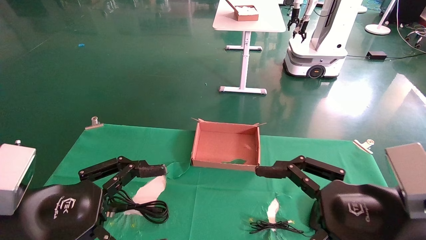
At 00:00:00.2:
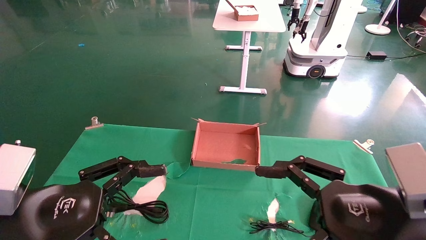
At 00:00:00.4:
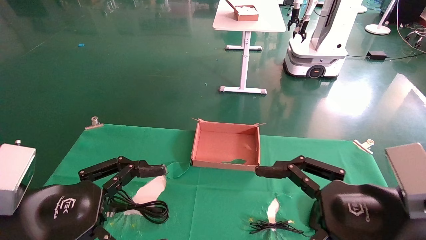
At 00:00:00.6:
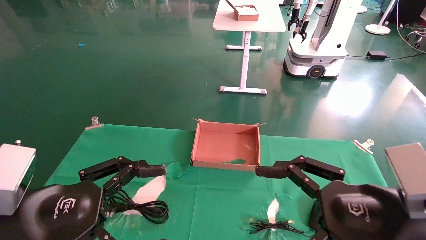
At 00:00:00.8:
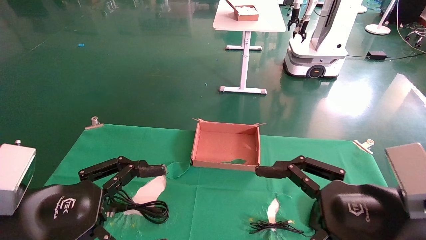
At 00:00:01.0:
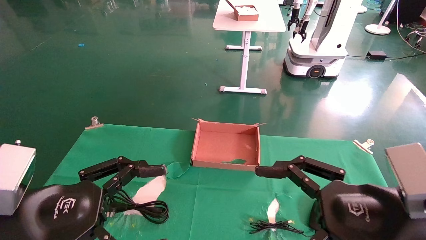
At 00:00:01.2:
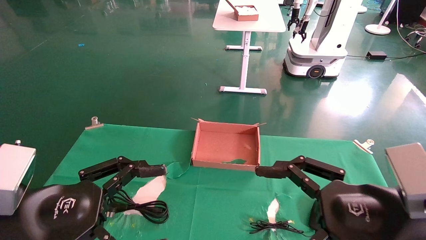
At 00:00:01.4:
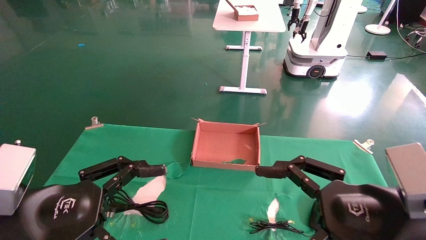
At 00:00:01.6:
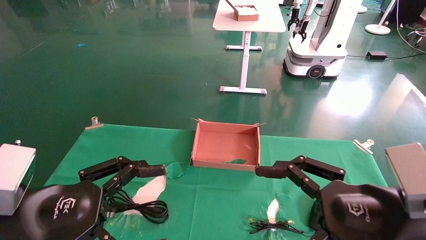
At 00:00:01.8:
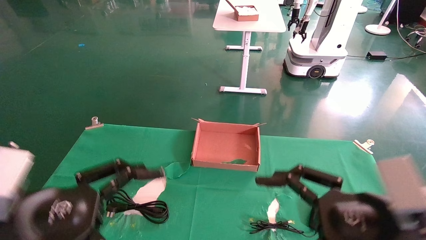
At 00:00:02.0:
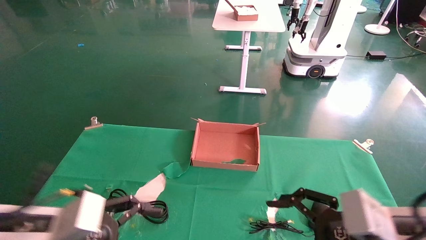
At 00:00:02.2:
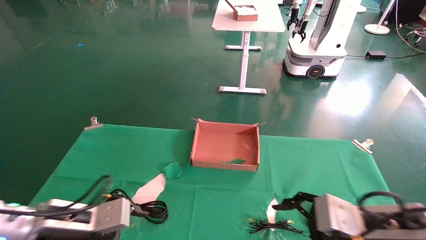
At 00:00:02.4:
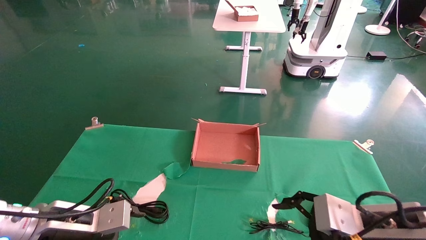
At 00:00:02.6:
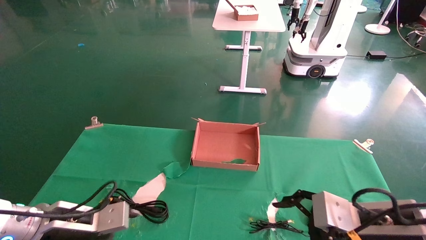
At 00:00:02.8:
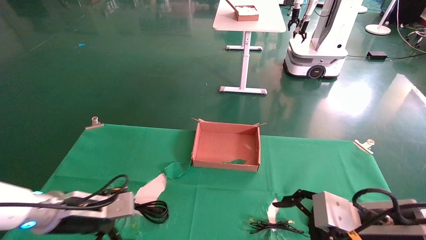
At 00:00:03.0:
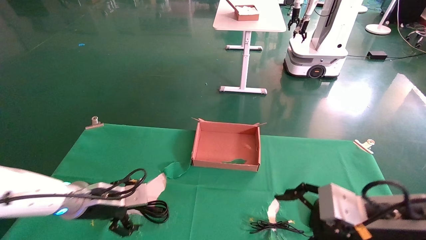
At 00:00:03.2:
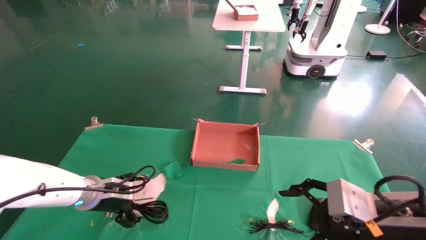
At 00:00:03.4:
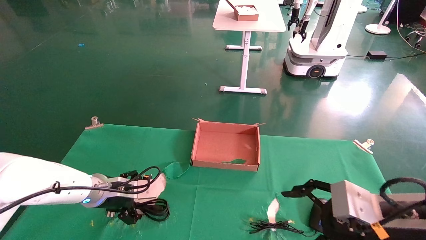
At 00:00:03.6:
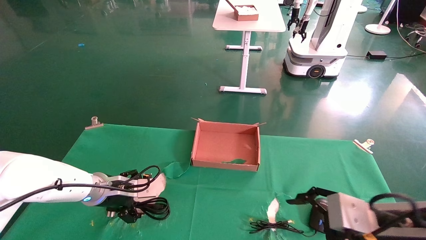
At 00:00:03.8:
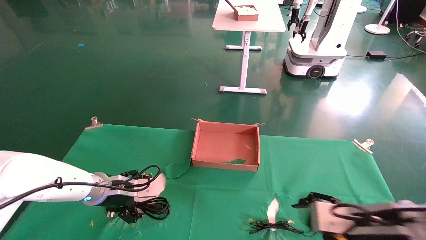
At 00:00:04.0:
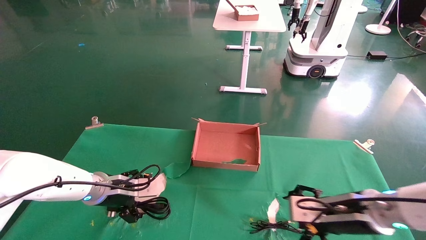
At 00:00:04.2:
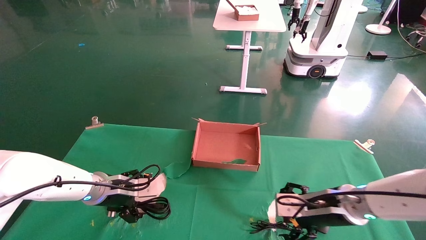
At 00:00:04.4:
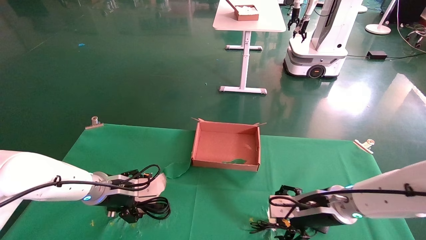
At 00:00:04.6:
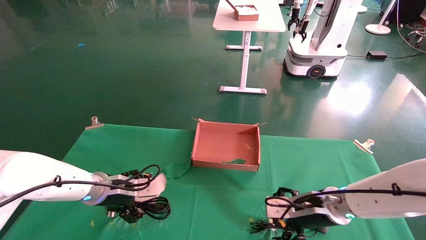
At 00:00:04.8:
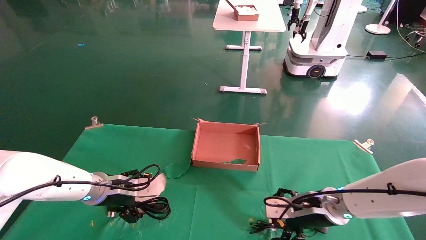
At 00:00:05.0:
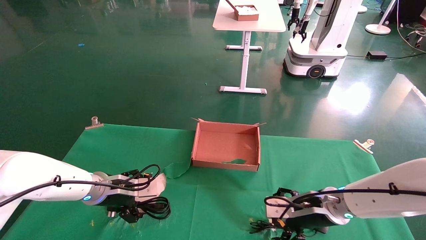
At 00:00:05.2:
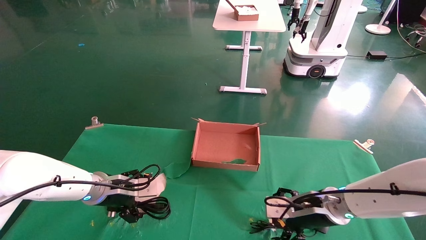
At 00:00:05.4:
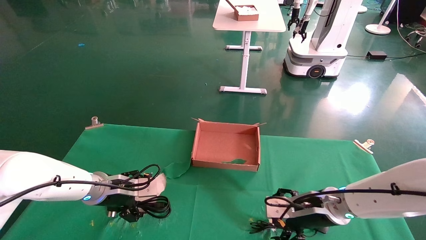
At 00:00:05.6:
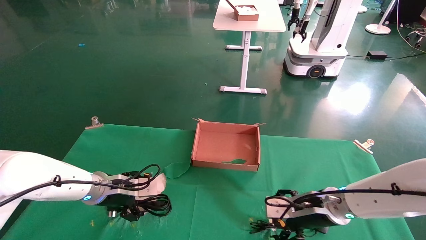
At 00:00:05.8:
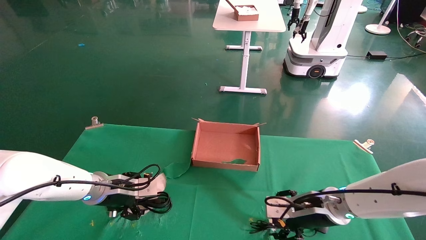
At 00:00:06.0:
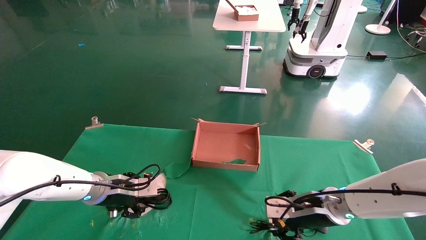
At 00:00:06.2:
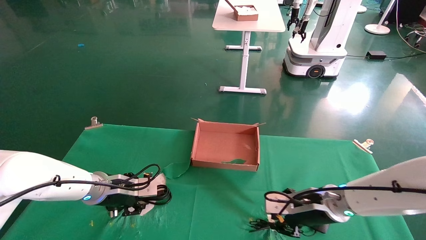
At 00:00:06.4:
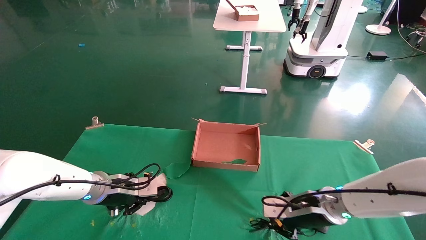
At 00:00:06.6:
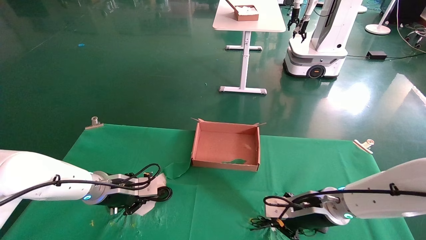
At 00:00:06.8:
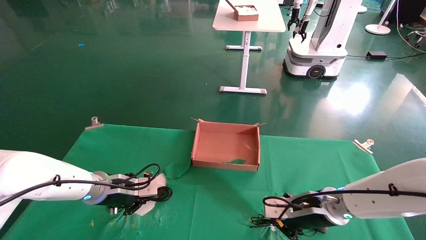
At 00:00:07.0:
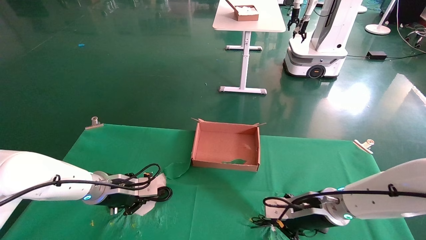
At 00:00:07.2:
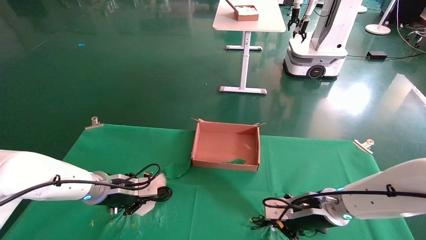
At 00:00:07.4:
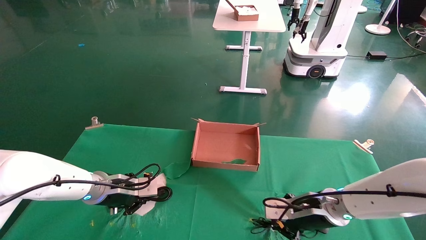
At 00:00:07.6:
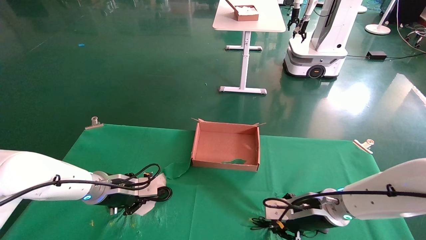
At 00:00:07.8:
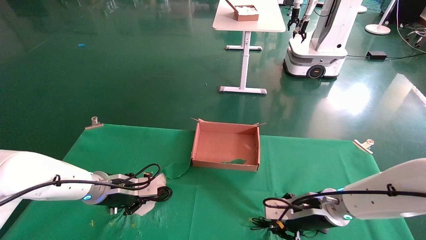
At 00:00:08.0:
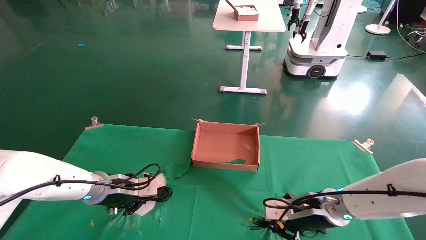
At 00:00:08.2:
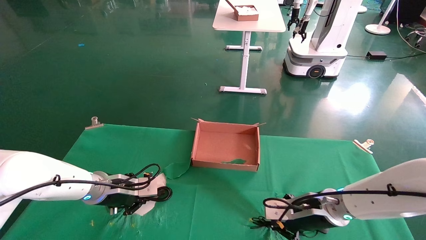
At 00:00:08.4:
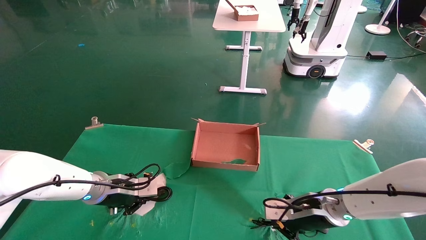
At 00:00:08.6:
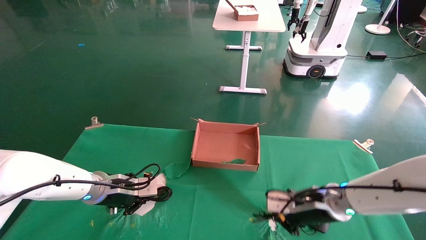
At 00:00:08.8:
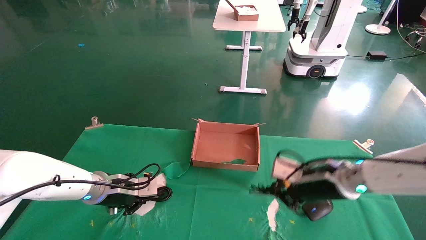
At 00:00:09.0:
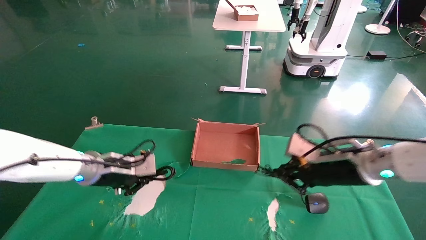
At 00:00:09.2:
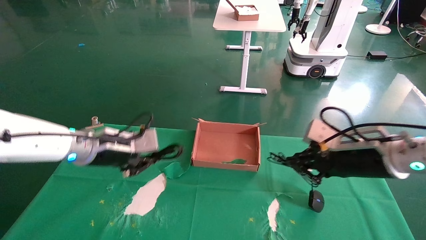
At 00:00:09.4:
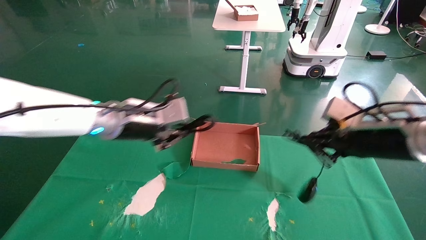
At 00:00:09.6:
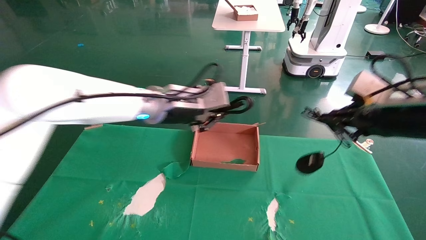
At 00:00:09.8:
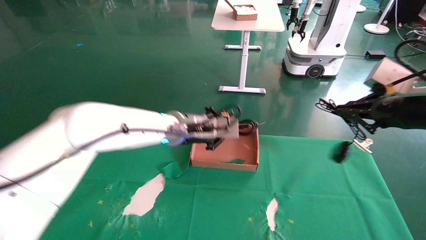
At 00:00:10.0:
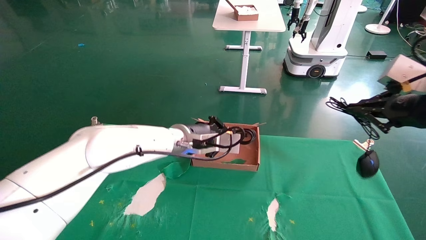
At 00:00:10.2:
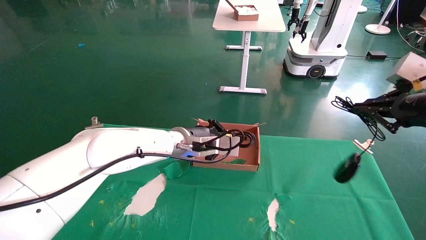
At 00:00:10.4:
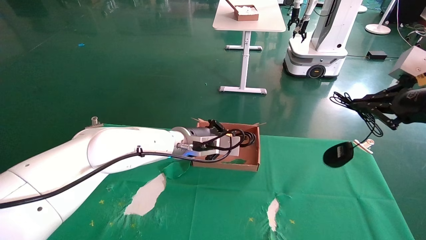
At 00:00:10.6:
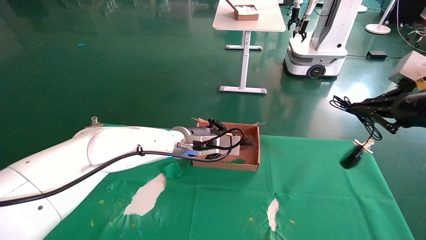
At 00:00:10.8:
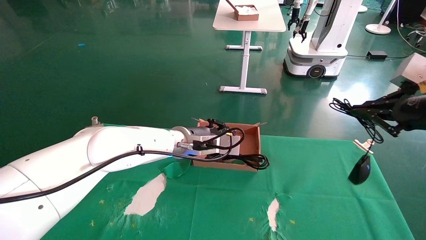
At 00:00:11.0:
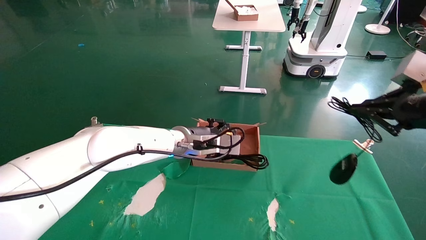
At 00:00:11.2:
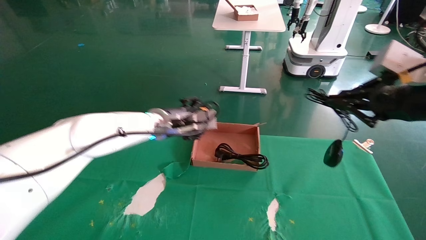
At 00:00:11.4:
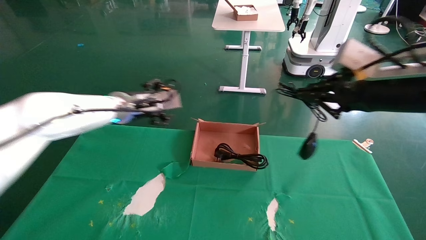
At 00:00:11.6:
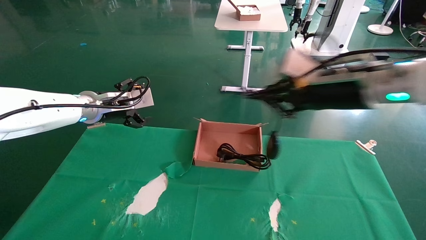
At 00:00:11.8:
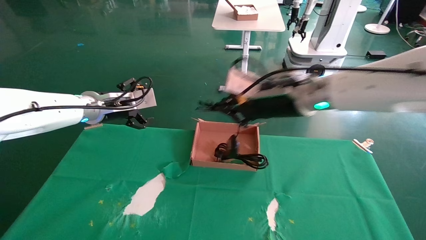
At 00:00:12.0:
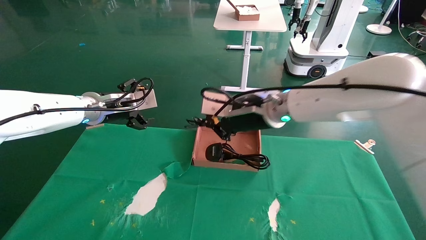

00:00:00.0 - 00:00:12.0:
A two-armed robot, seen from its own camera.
Step, 00:00:01.8 - 00:00:09.2: Grab and lift both the mouse and power cord from the accessory packaging area at the same time.
00:00:00.0 - 00:00:01.6: Neither gripper changes place.
00:00:01.6 - 00:00:03.0: The left gripper travels forward and downward by some 20 cm, while the right gripper shifts by roughly 5 cm.
00:00:03.0 - 00:00:04.4: The left gripper travels forward by approximately 5 cm. Meanwhile the right gripper travels forward and downward by some 15 cm.
00:00:04.4 - 00:00:06.0: The left gripper closes its fingers. The right gripper closes.
00:00:06.0 - 00:00:07.6: The left gripper closes its fingers, while the right gripper closes.
00:00:07.6 - 00:00:09.0: The left gripper moves upward, roughly 5 cm. Meanwhile the right gripper shifts approximately 10 cm upward.
00:00:09.0 - 00:00:10.4: The right gripper travels upward, to the right and backward by approximately 20 cm. Meanwhile the left gripper shifts roughly 20 cm to the right.
00:00:10.4 - 00:00:12.0: The right gripper moves to the left and forward, some 30 cm. Meanwhile the left gripper shifts roughly 20 cm to the left and upward, and opens its fingers.

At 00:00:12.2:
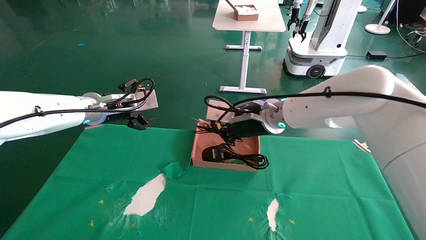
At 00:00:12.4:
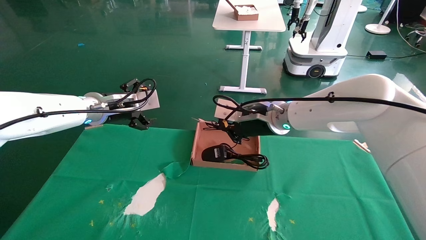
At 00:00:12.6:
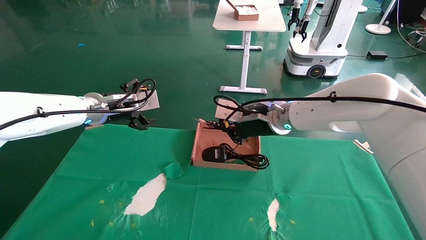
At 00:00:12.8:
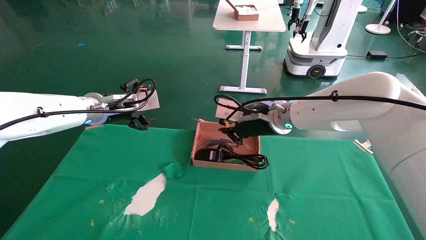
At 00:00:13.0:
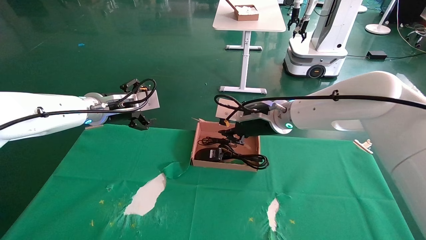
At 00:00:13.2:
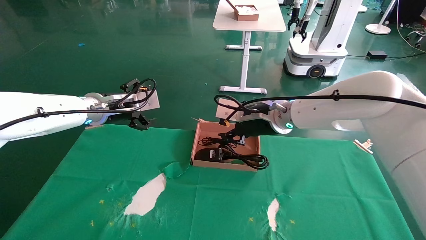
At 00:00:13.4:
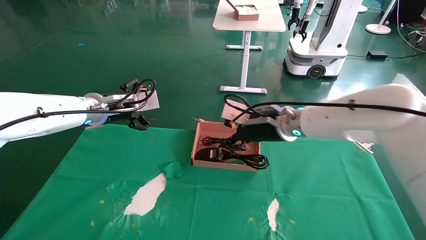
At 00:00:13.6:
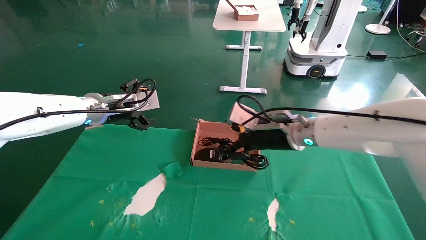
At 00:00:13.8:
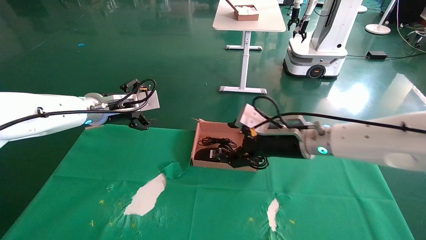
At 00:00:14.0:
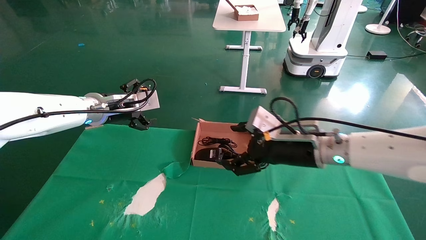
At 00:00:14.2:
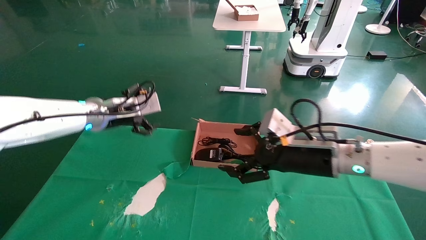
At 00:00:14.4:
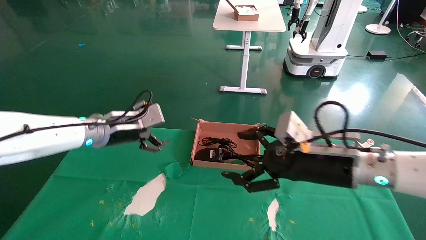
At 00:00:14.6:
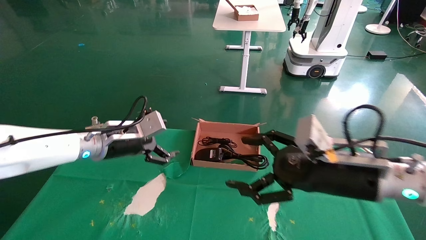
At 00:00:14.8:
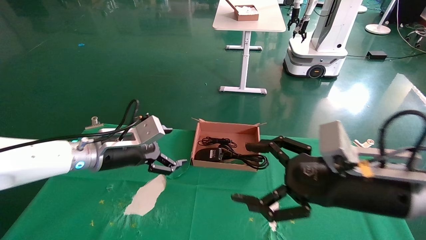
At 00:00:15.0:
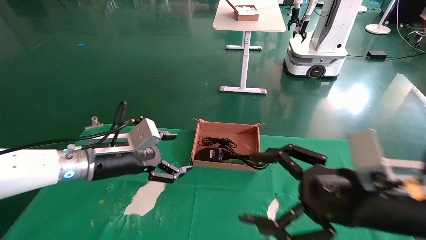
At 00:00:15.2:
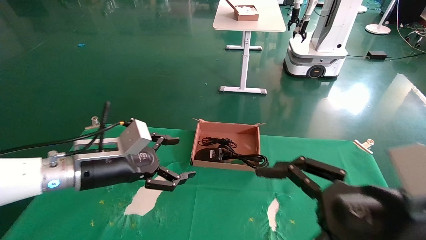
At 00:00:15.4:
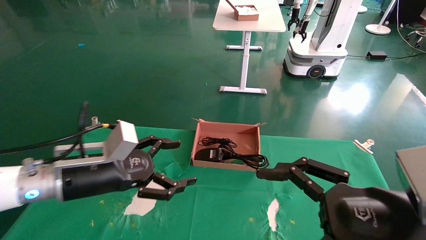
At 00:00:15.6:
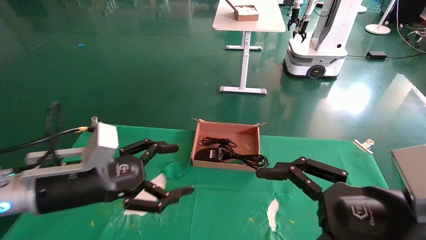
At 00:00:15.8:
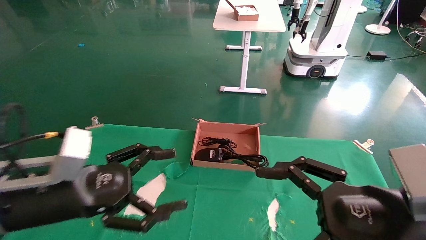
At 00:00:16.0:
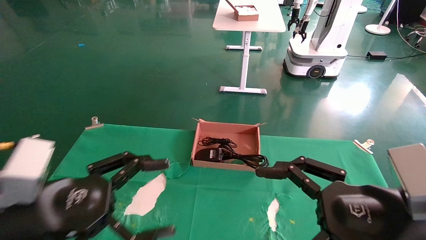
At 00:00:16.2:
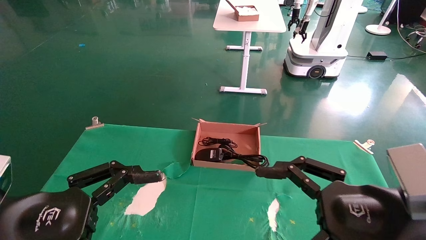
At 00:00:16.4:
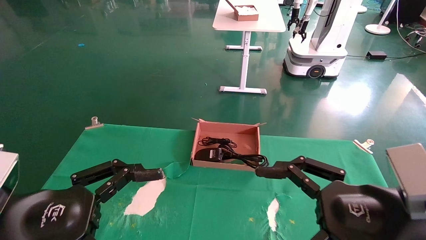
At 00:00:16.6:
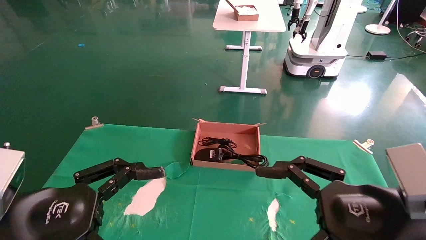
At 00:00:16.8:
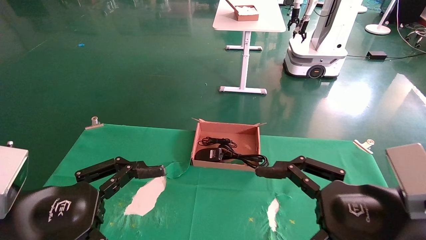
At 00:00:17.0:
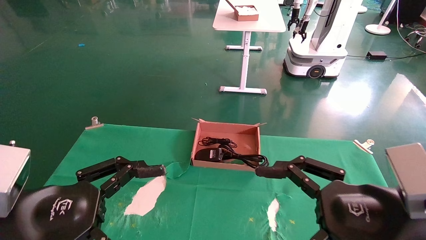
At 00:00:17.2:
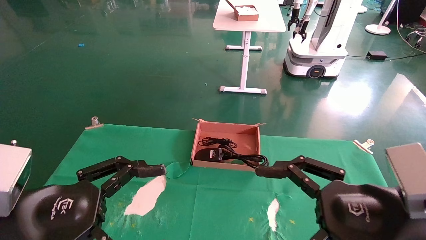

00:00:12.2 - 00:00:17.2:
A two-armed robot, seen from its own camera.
Step, 00:00:12.2 - 00:00:14.2: Place the mouse and power cord into the box.
00:00:12.2 - 00:00:13.8: The right gripper is displaced to the right by roughly 5 cm, and opens.
00:00:13.8 - 00:00:15.6: The left gripper shifts approximately 20 cm backward and downward. The right gripper shifts about 25 cm backward and to the right.
00:00:15.6 - 00:00:17.2: The left gripper heads backward, covering roughly 10 cm.
